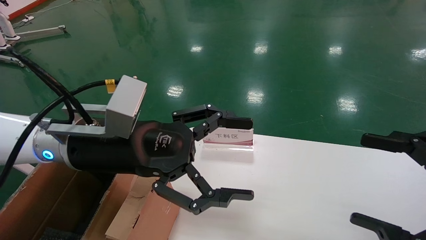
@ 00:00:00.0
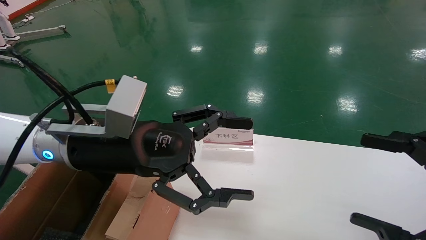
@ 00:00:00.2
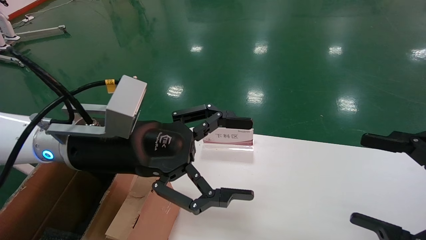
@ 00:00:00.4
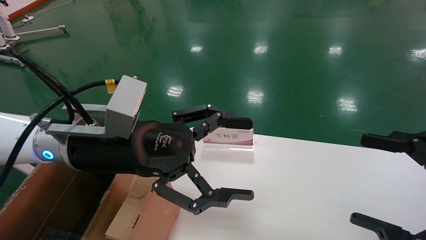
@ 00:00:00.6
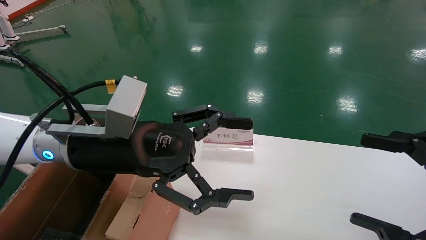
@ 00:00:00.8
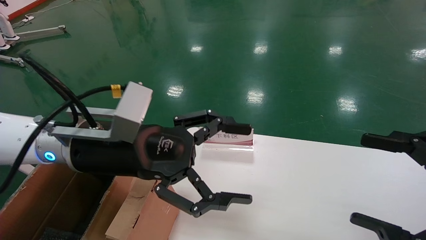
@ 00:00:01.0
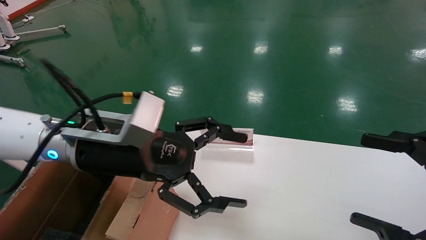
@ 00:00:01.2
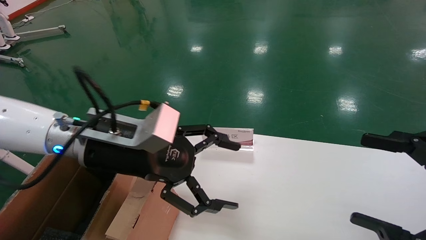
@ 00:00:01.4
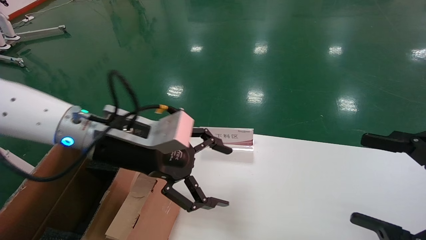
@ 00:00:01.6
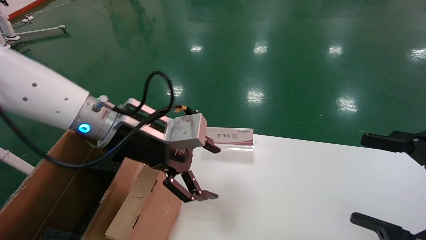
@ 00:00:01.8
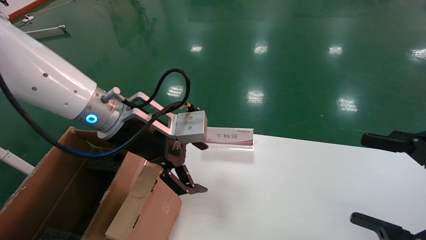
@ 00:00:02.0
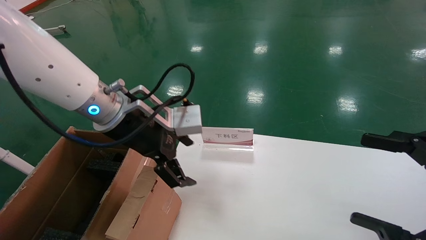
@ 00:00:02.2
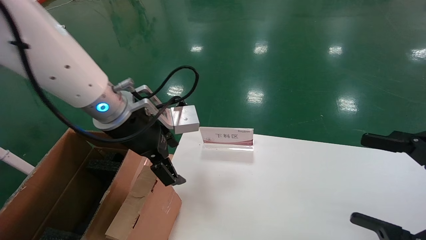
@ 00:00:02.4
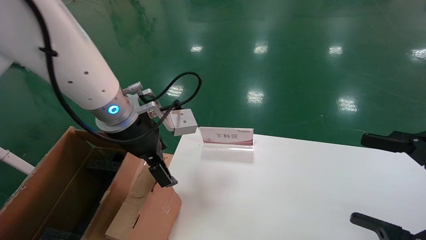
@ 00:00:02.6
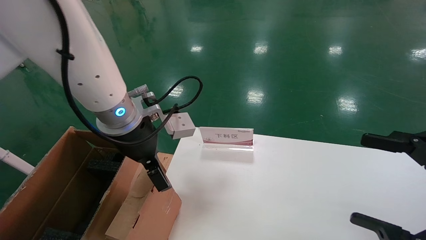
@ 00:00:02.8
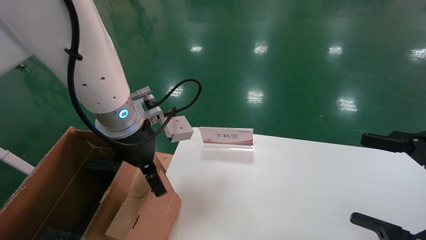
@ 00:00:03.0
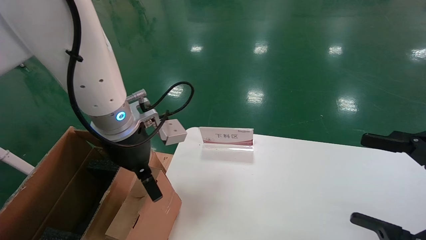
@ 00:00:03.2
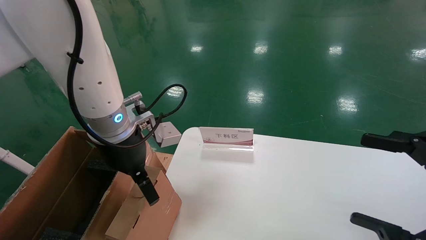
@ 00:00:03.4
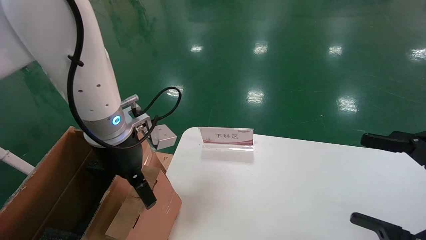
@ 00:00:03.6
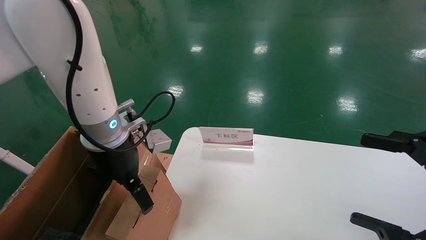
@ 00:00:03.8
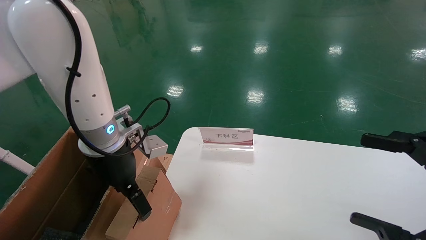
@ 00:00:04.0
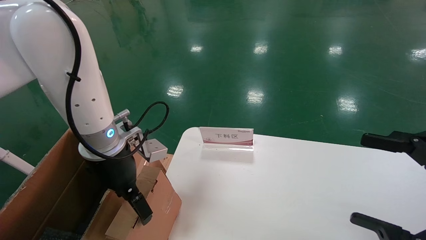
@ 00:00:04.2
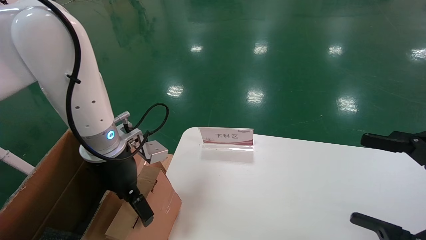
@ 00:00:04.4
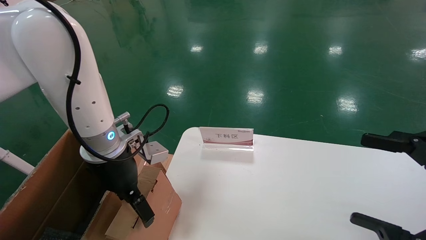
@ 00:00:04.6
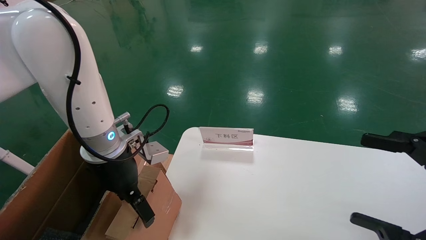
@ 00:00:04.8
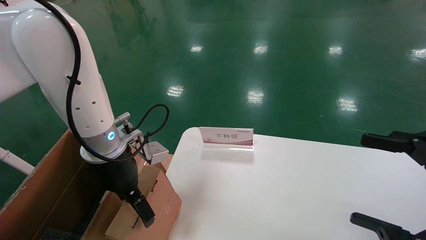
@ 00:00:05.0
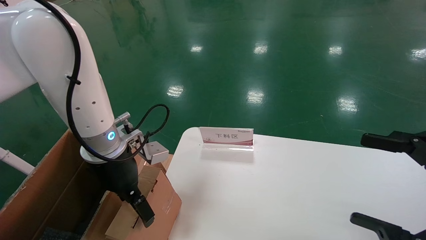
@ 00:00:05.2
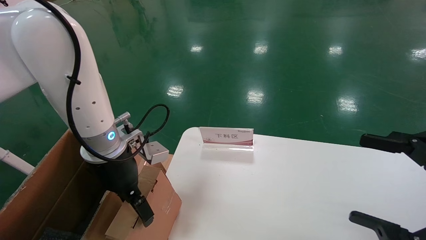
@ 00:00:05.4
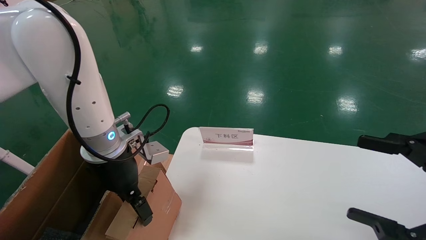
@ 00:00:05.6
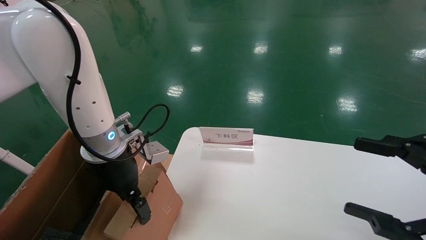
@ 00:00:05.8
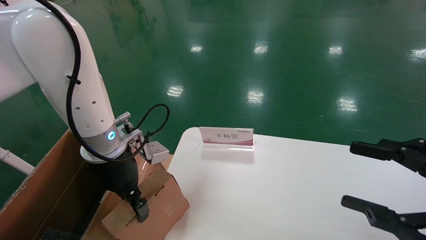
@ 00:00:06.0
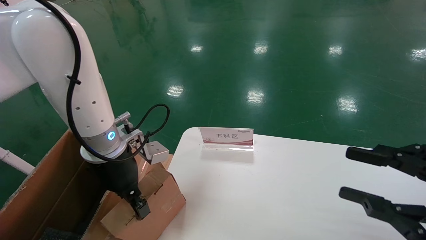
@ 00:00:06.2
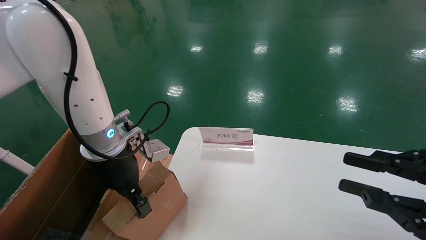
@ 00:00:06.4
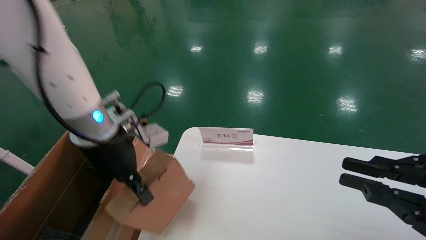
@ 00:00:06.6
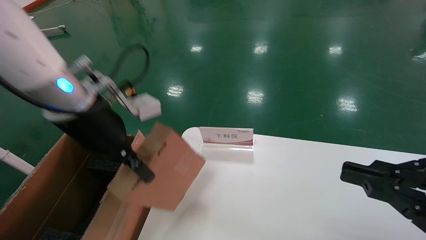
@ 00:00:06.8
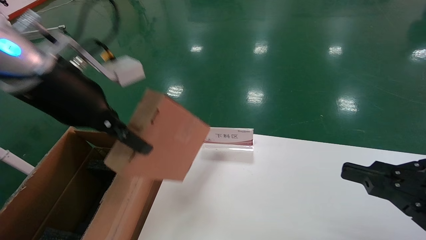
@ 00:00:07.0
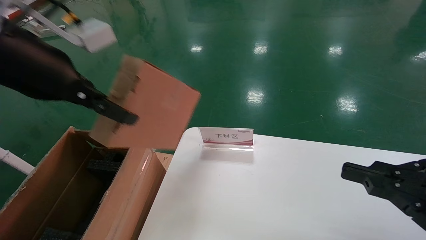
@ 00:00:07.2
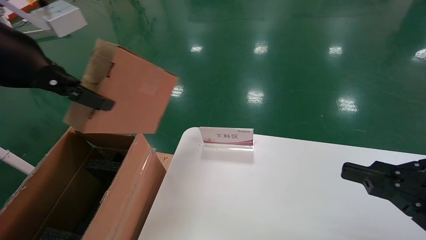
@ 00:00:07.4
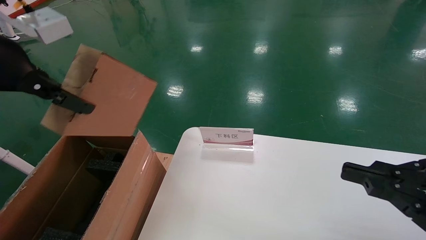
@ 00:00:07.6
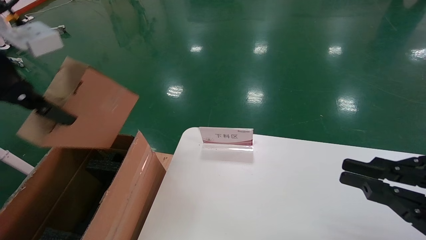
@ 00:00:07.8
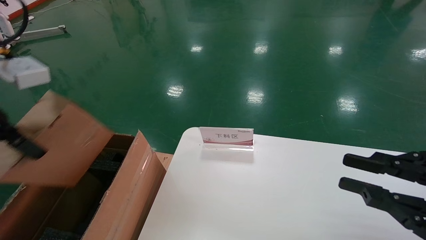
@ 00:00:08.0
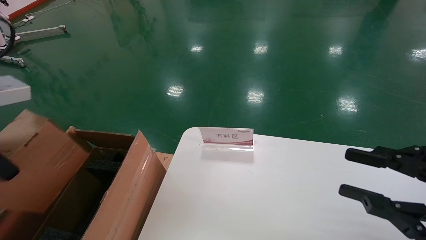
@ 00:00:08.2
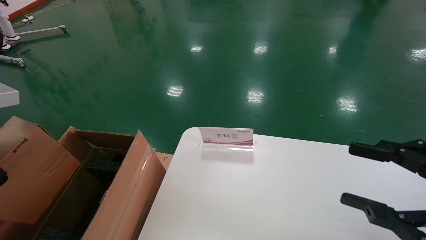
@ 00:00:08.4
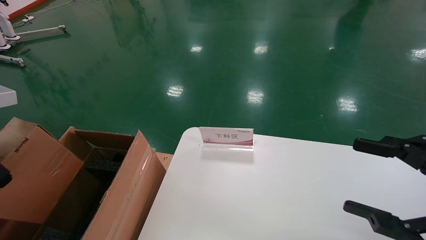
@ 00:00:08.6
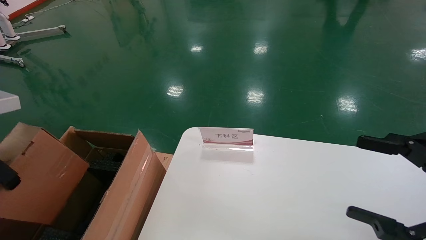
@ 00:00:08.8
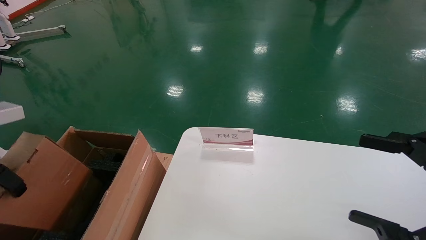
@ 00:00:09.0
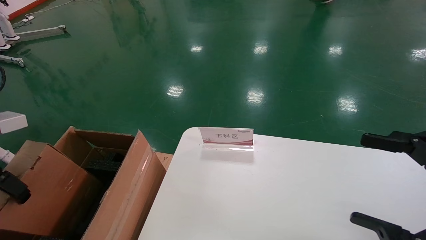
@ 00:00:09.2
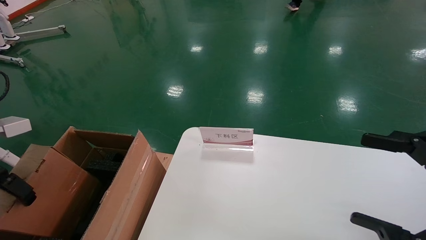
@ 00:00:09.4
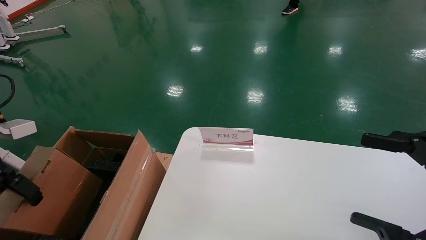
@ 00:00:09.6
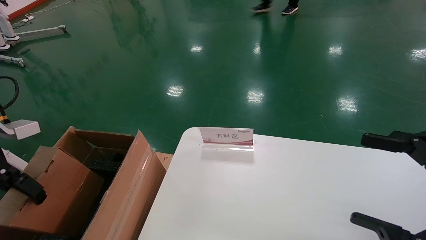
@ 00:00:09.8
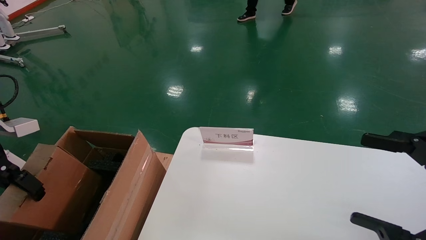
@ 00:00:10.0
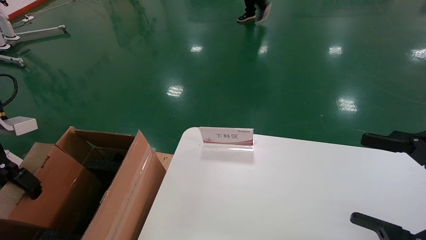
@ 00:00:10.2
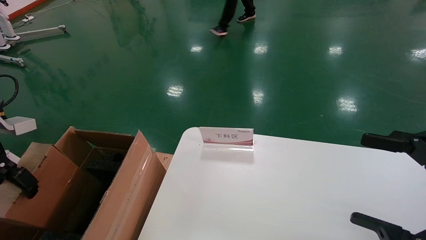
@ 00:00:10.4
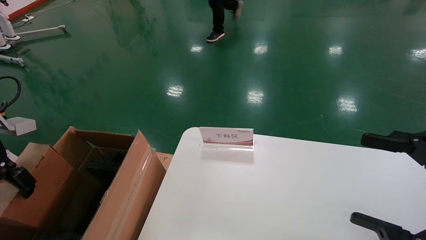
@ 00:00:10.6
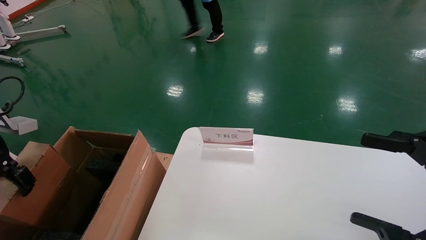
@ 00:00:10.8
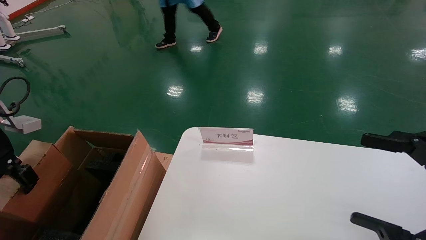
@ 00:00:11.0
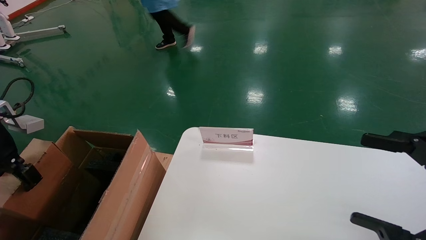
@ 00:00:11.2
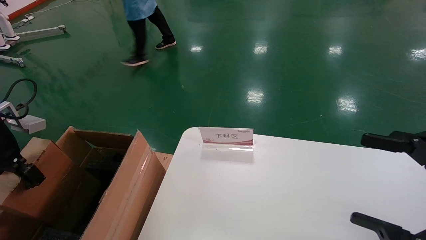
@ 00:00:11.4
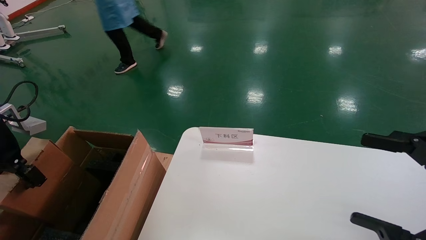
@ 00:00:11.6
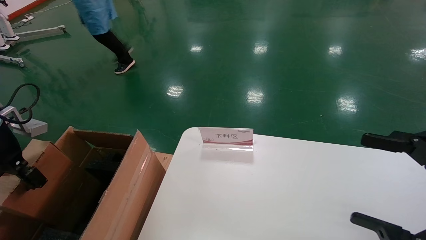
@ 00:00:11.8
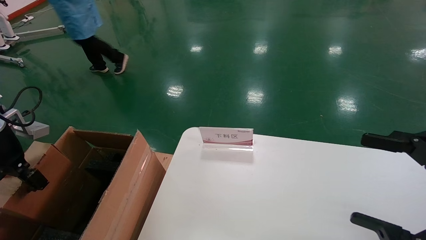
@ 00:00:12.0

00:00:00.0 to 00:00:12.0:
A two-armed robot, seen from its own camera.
Task of the whole recording: pick up the small cardboard box and load it into the large cardboard box.
Step, 00:00:01.0 to 00:00:06.0: Pick up the mouse and power cord box.
00:00:03.0 to 00:00:04.4: The left gripper shifts by approximately 5 cm.
00:00:04.4 to 00:00:06.0: The left gripper closes up.
00:00:06.0 to 00:00:07.6: The left gripper heads upward, backward and to the left, covering roughly 25 cm, and closes. The right gripper closes up.
00:00:07.6 to 00:00:09.0: The left gripper shifts approximately 15 cm to the left and downward. The right gripper opens its fingers.
00:00:09.0 to 00:00:10.4: The left gripper moves roughly 10 cm.
00:00:10.4 to 00:00:12.0: The left gripper ends up some 5 cm from where it was.

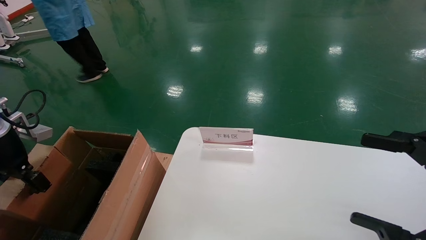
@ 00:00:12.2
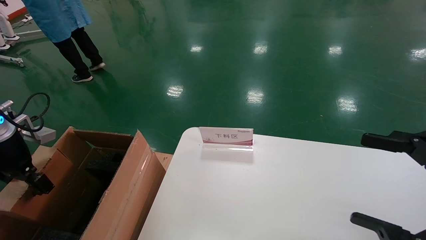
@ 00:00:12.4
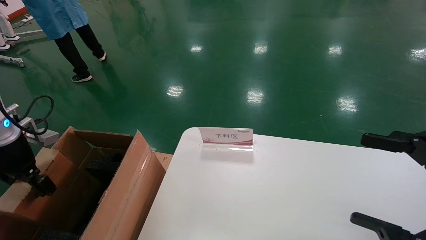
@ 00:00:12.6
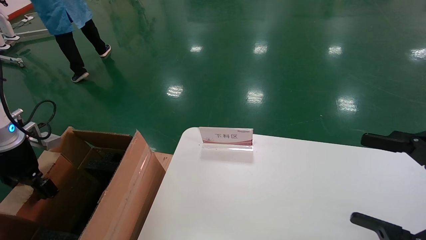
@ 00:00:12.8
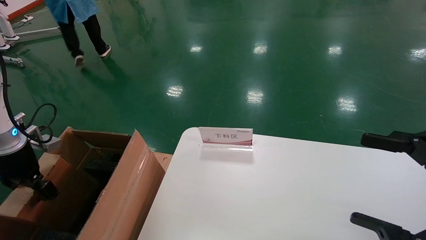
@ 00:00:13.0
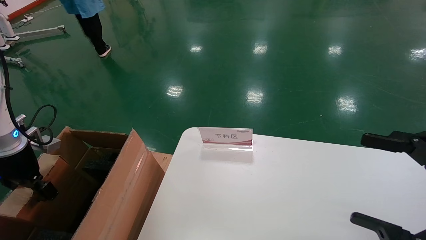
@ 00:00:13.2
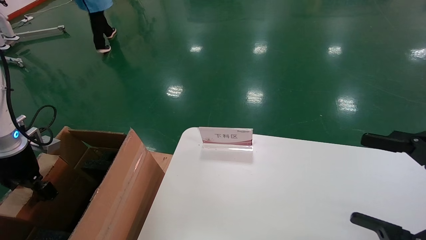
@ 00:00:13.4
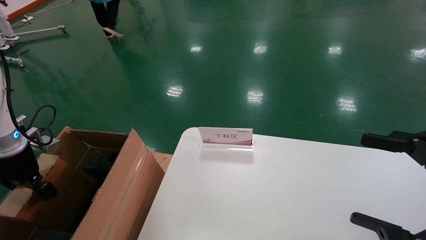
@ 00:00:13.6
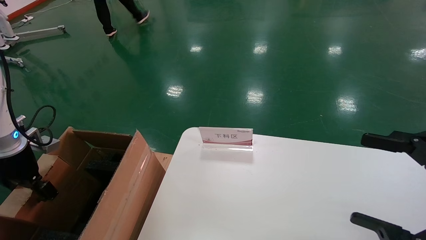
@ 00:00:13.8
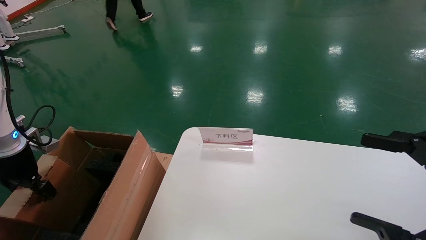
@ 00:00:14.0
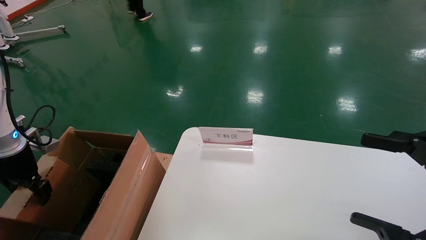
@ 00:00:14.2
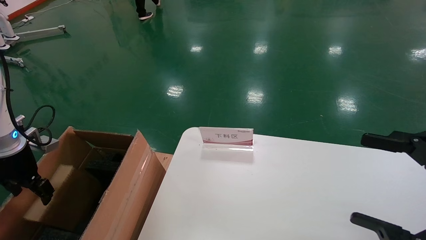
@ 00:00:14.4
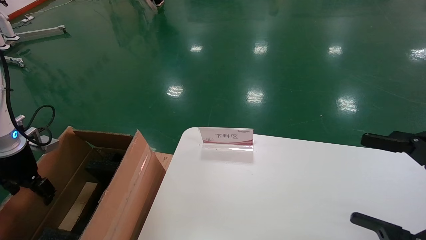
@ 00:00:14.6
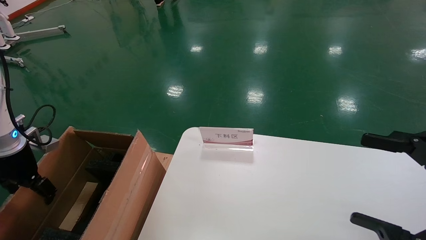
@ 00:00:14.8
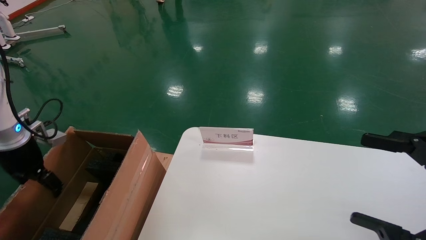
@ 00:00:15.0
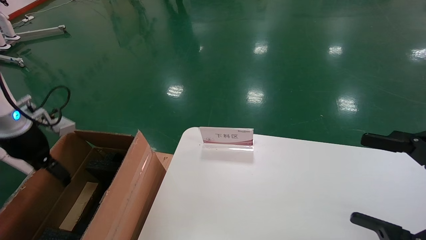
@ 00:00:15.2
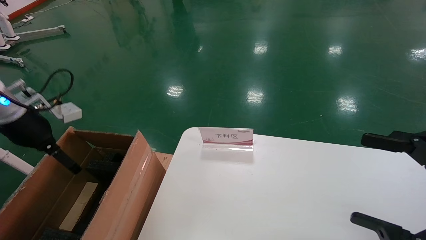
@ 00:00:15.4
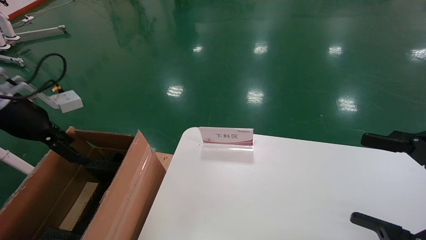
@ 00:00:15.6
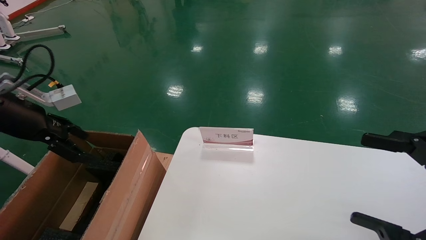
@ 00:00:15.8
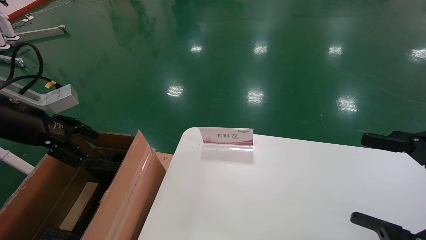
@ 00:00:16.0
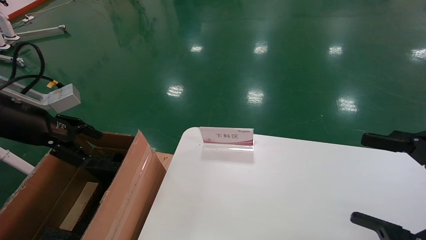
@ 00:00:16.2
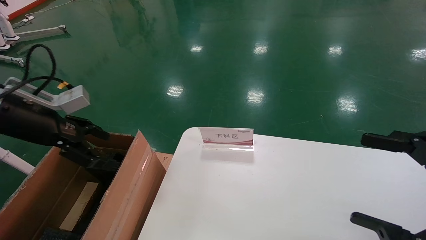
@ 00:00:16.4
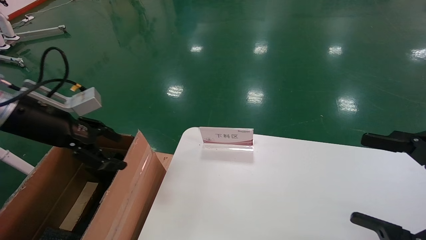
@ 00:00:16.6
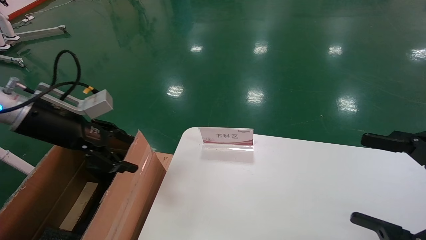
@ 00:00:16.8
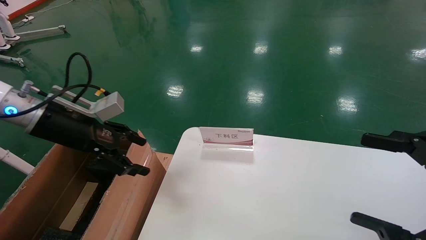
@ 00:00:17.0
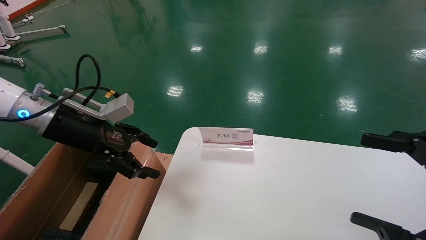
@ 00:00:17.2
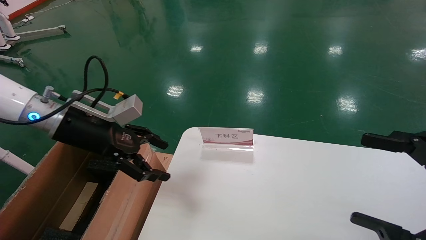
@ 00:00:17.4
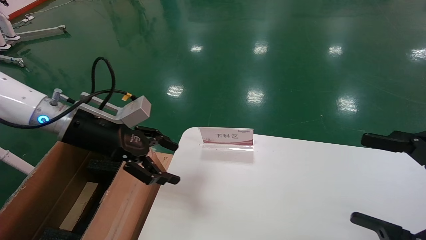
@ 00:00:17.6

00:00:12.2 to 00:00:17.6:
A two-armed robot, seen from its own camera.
Task of the whole recording: pick up the small cardboard box and load it into the large cardboard box.
Step, 00:00:12.2 to 00:00:14.6: Place the mouse and power cord box into the case.
00:00:12.2 to 00:00:13.6: The left gripper shifts by some 5 cm.
00:00:13.6 to 00:00:15.0: The left gripper opens its fingers.
00:00:15.0 to 00:00:16.2: The left gripper moves upward and to the right, some 10 cm.
00:00:16.2 to 00:00:17.6: The left gripper heads to the right, covering some 10 cm.
